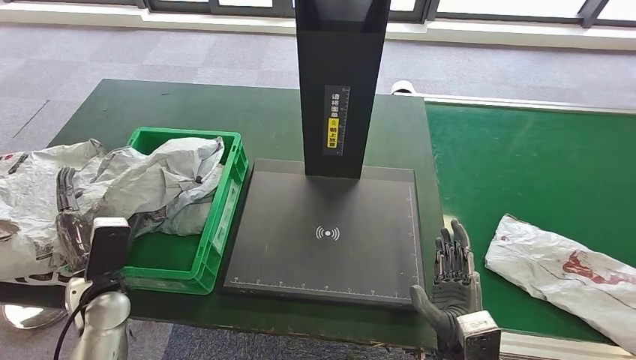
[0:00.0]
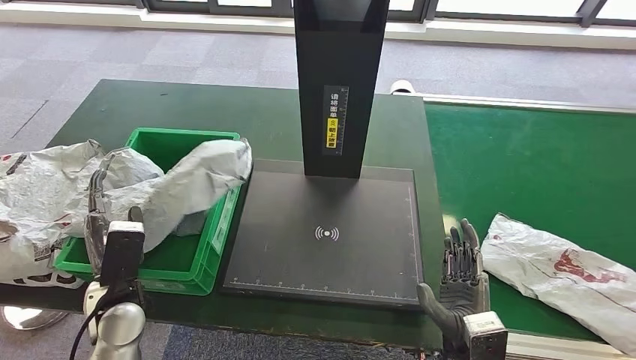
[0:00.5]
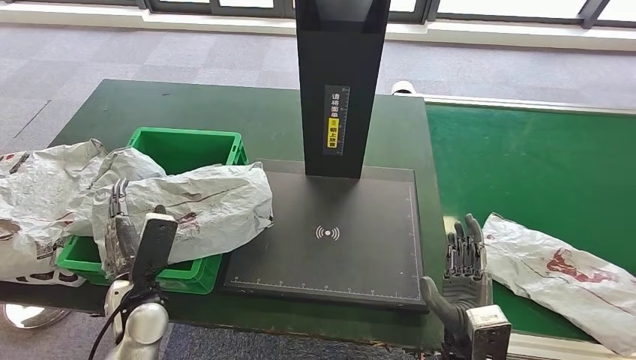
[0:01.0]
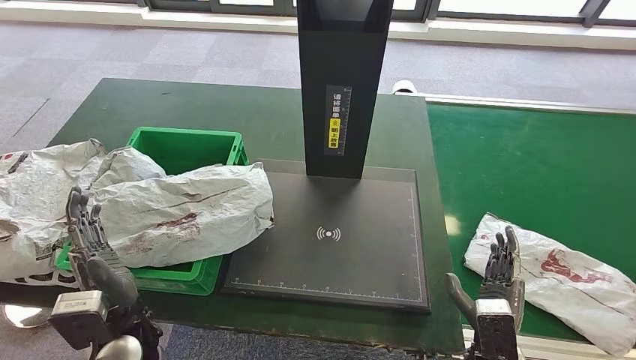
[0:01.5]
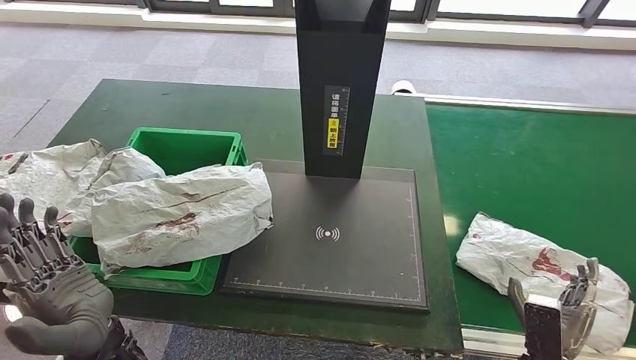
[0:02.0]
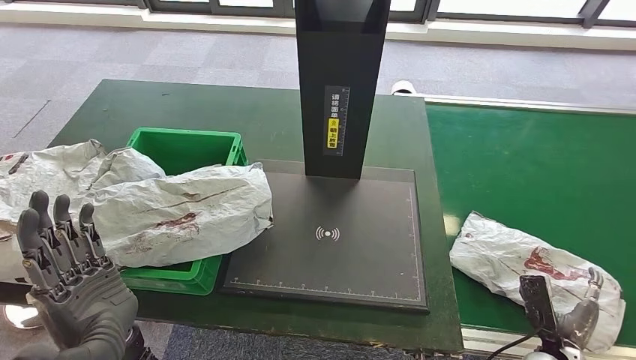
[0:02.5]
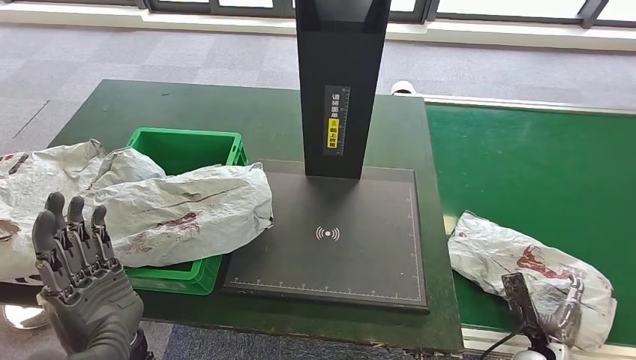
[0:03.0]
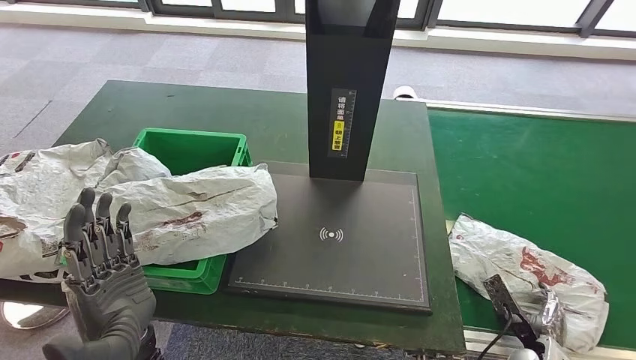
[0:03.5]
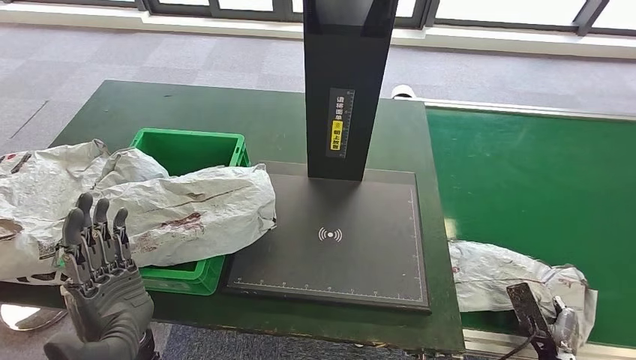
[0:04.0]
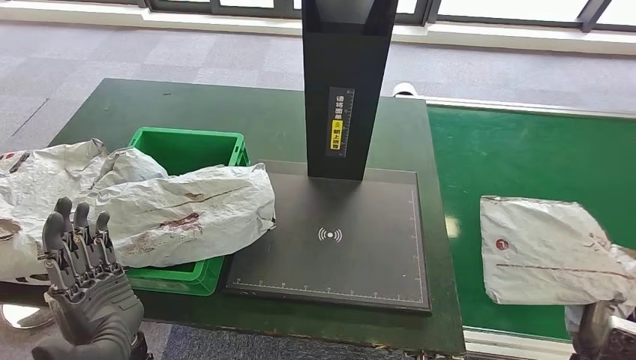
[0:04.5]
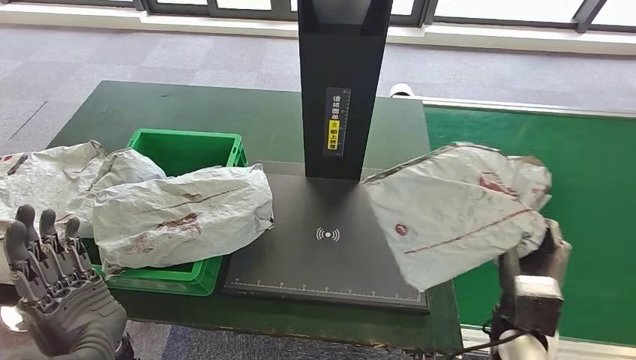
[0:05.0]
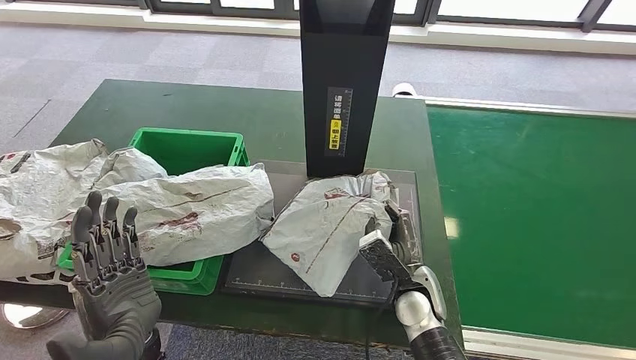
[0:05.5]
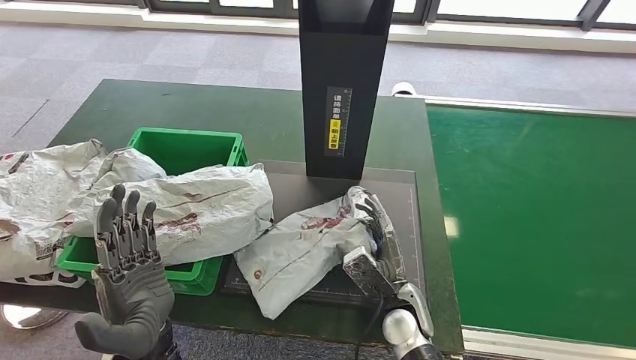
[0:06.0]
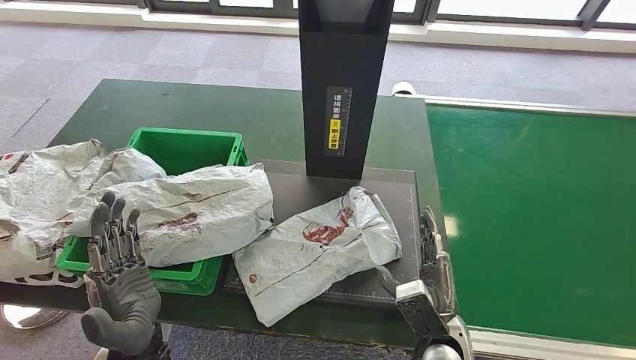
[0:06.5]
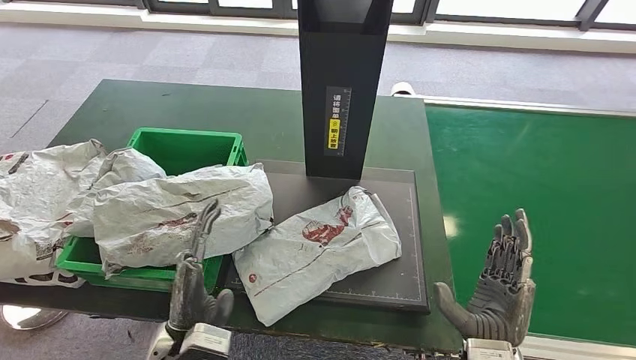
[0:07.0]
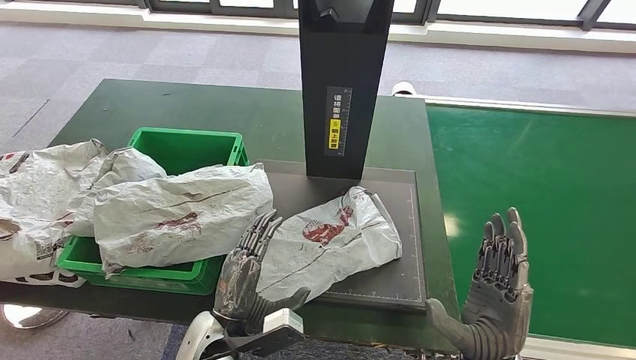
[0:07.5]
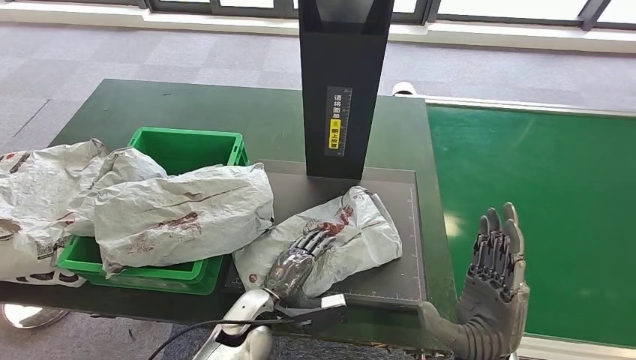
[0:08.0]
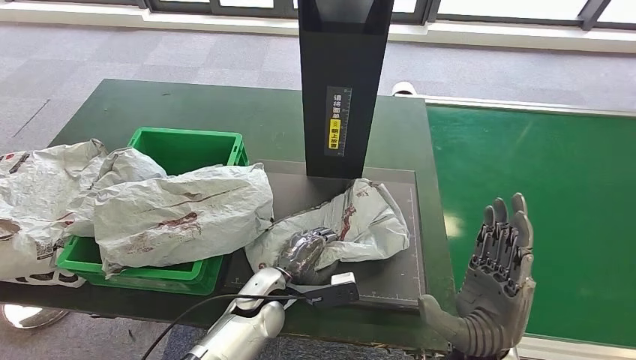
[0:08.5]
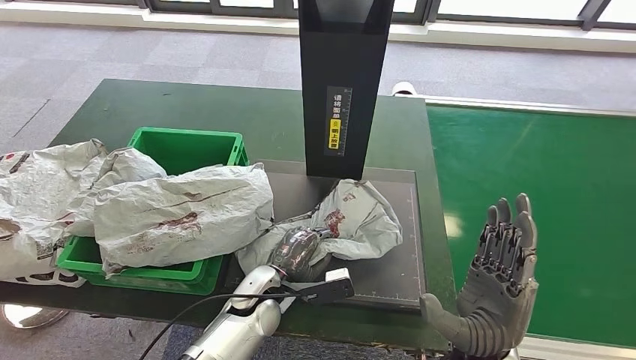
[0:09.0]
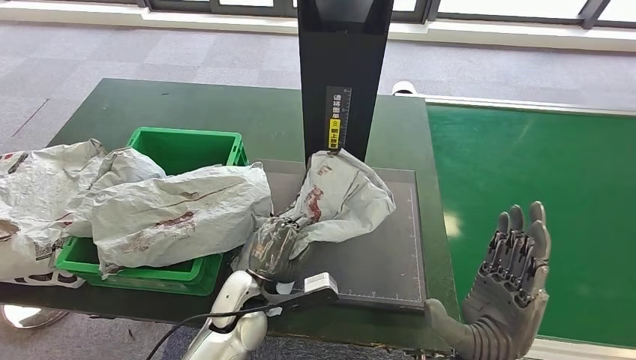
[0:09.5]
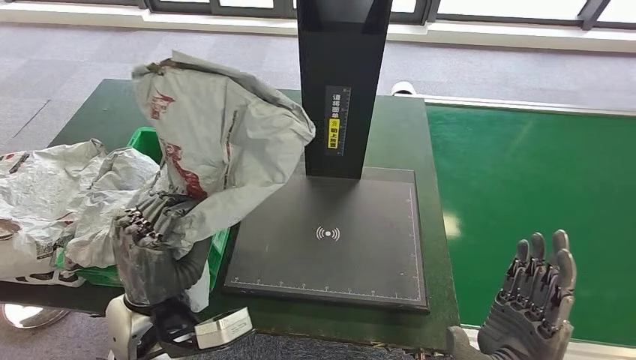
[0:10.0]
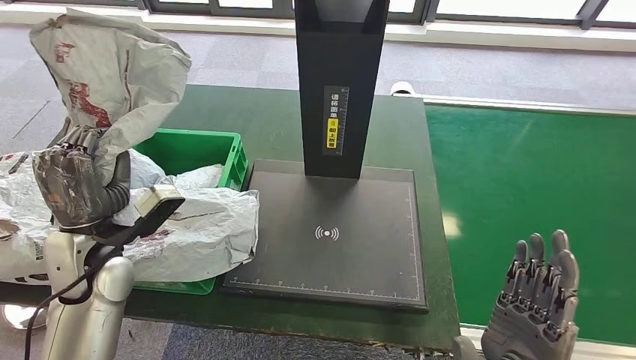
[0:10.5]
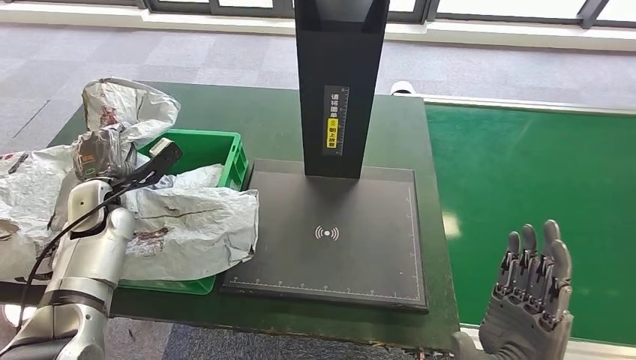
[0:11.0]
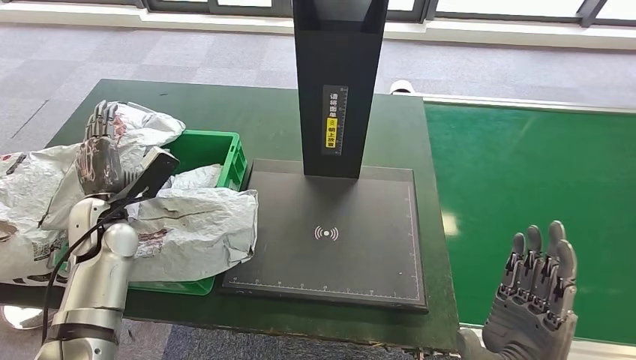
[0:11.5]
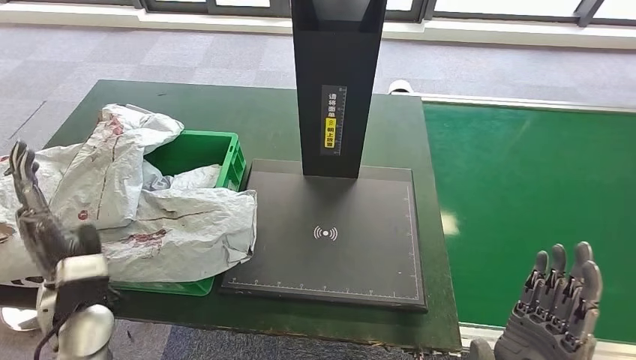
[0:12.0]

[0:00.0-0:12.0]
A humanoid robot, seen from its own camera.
Step, 0:02.0 to 0:05.0: Pick up the parcel from the conveyor belt.
Step, 0:05.5 to 0:07.0: Place the parcel onto the inbound machine.
Step, 0:07.5 to 0:10.0: Pick up the parcel from the inbound machine.
Step, 0:10.5 to 0:12.0: Place the parcel into the delivery box.
0:06.0 to 0:08.0: The right hand heads upward, backward and to the right, covering about 15 cm. Meanwhile the left hand is displaced downward, to the right and forward by about 20 cm.
